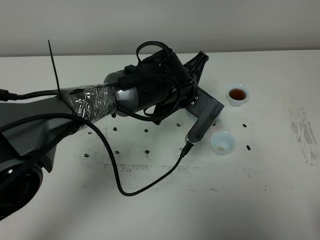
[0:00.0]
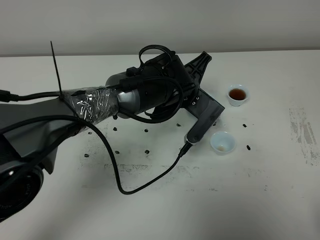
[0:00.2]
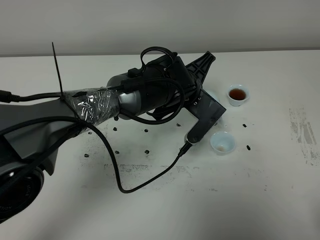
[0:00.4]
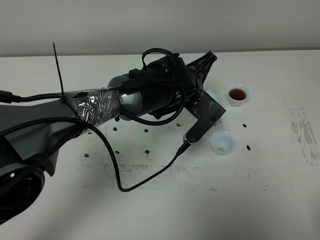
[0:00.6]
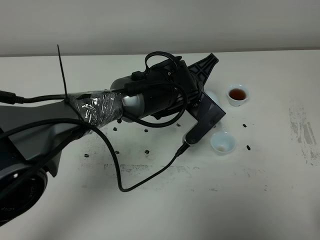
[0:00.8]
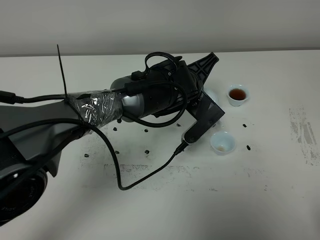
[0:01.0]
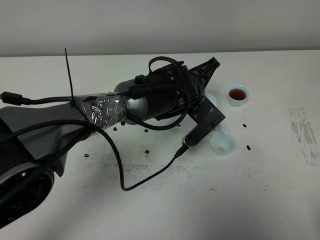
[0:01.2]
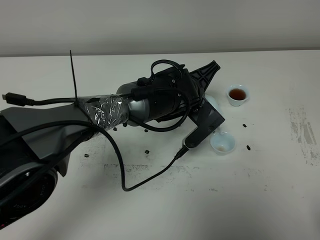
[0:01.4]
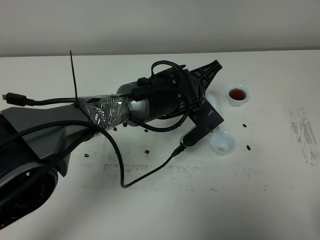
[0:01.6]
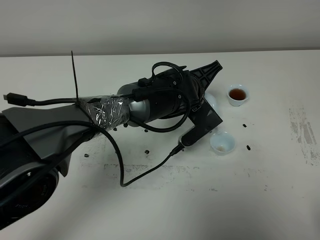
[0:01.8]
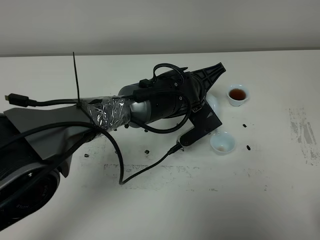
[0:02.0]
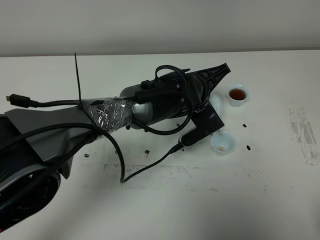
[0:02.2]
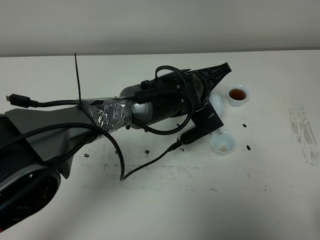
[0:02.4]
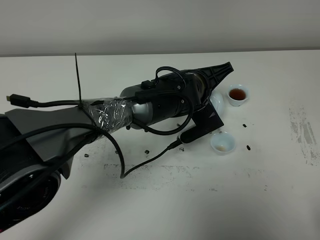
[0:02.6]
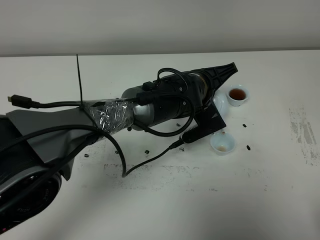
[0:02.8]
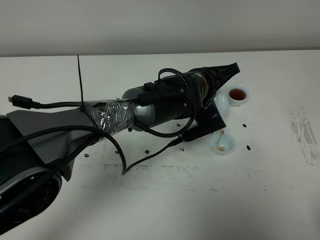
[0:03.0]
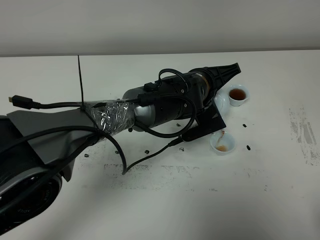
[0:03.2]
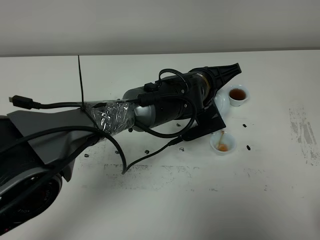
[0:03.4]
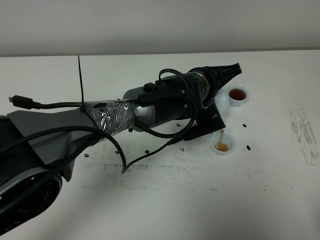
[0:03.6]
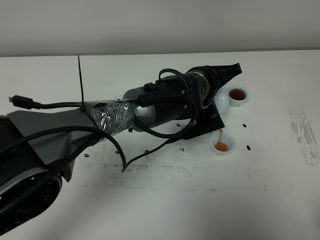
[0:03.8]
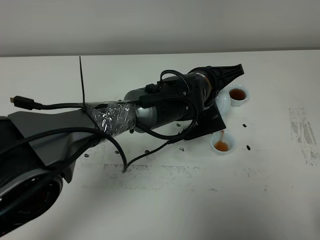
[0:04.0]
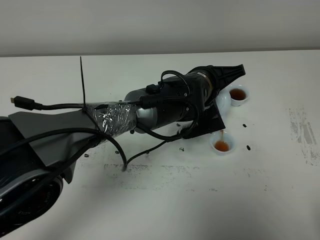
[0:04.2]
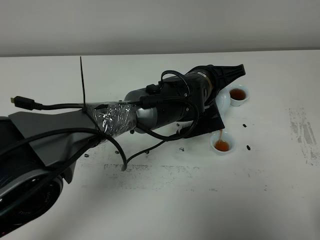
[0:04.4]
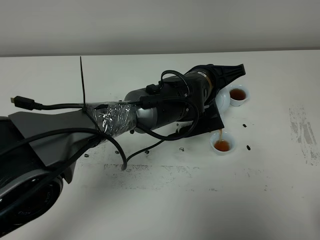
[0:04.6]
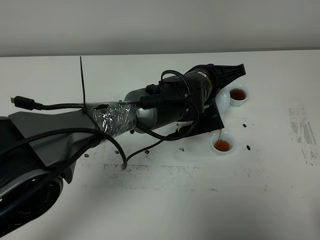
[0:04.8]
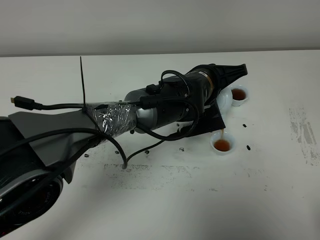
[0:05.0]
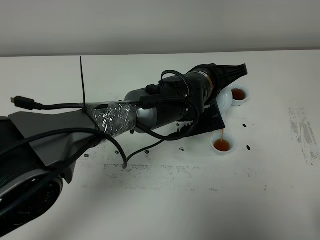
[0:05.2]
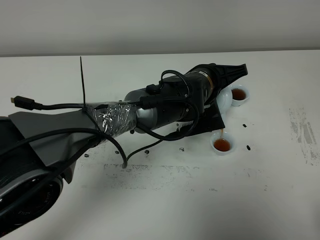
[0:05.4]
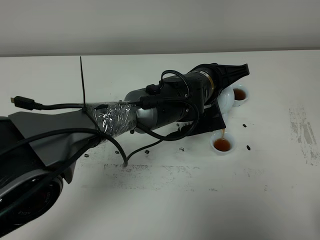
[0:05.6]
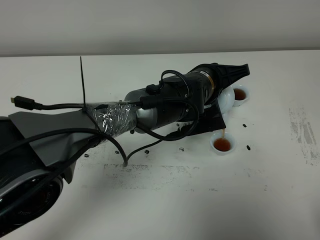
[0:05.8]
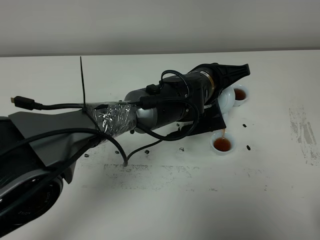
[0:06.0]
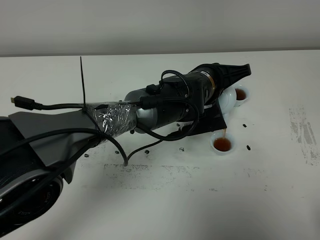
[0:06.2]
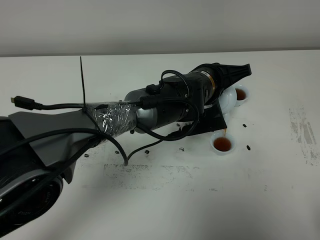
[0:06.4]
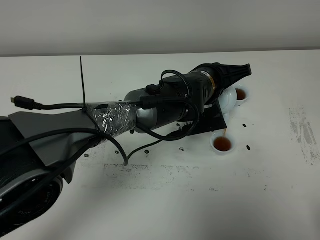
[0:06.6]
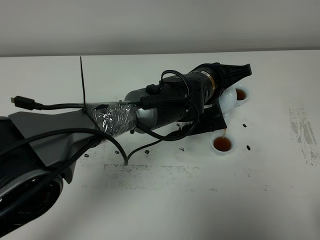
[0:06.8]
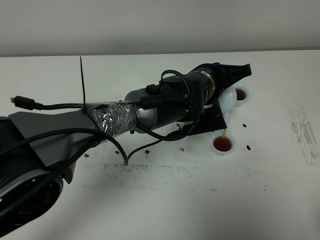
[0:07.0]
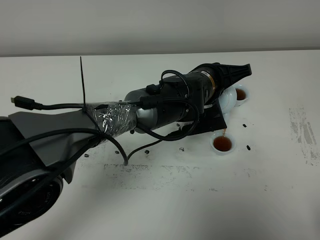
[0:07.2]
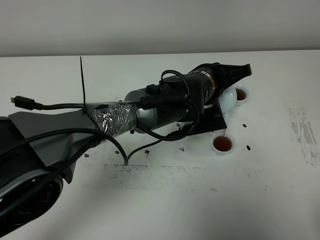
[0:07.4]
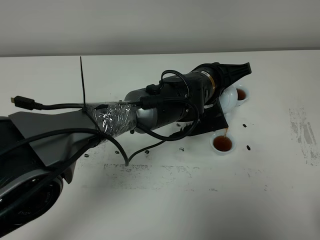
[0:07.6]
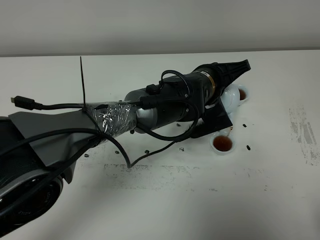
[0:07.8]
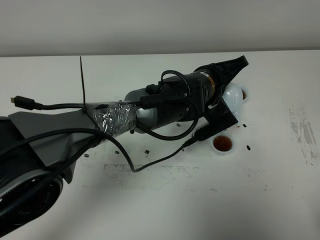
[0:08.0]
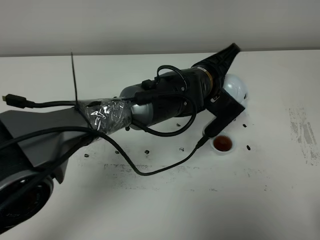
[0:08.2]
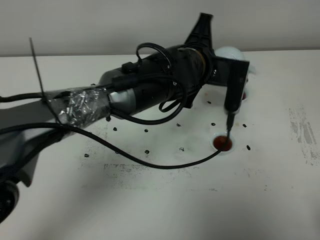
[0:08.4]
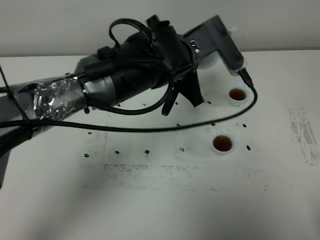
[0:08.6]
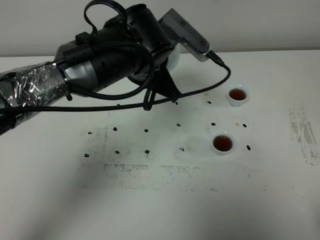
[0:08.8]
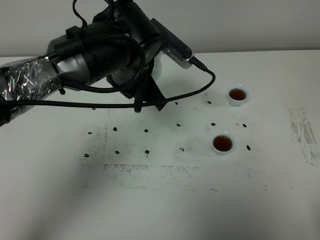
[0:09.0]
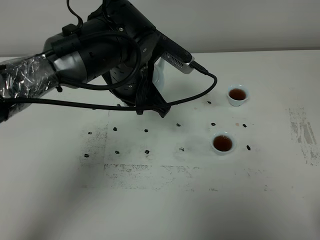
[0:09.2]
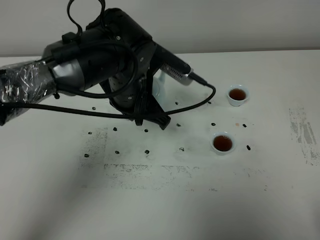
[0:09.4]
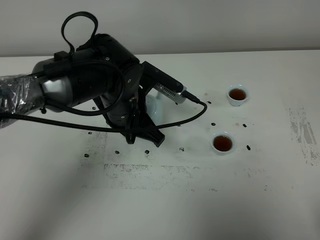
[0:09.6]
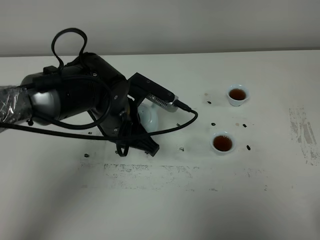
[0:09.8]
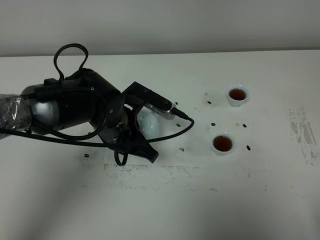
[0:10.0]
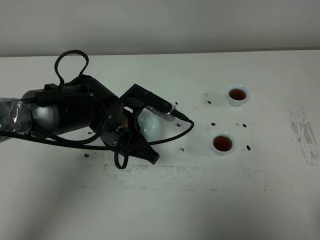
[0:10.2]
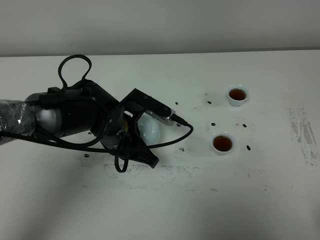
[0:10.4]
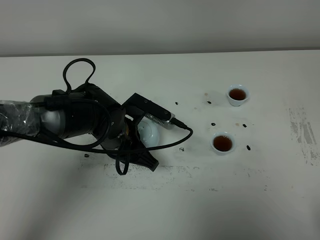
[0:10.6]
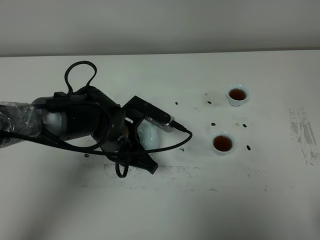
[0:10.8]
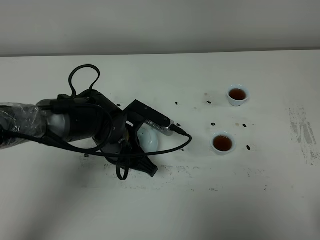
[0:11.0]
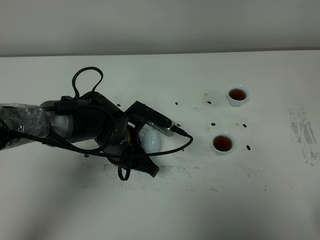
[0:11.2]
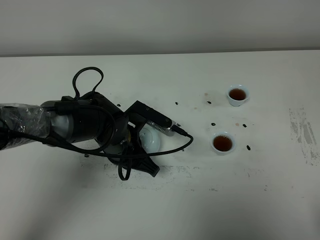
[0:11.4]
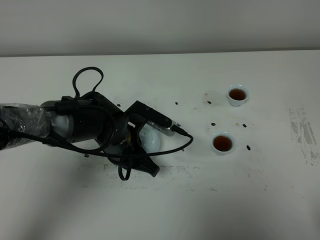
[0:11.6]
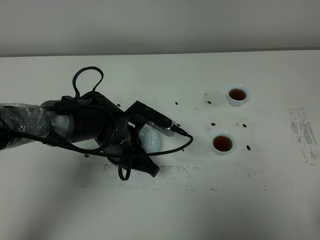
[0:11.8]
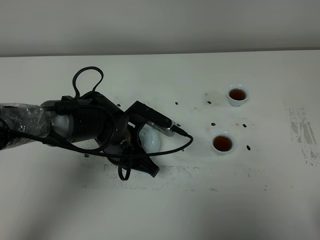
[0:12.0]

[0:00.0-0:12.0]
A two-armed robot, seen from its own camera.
Task of the whole recording: grasp the blue porcelain teapot and pour the tea into the two blue porcelain teacups one by one, put the blue porcelain teapot back in its original place.
Step, 0:00.0 to 0:08.0: Pour tea into the teacup with the left gripper.
0:00.0 to 0:01.6: There are only small adjustments of the grippers.
0:01.6 to 0:03.0: The grippers make only small movements.
0:03.0 to 0:04.4: There are only small adjustments of the grippers.
0:04.4 to 0:07.6: Neither gripper changes place.
0:07.6 to 0:09.0: The left gripper travels to the left and upward by roughly 15 cm.
0:09.0 to 0:10.4: The left gripper moves downward, approximately 10 cm.
0:10.4 to 0:12.0: There are only small adjustments of the grippers.

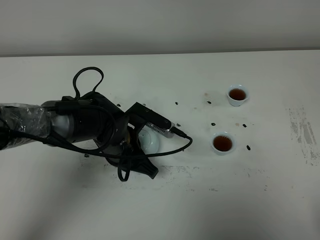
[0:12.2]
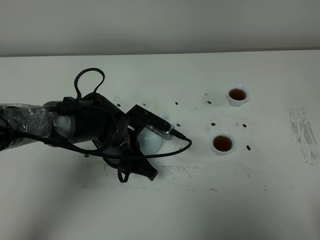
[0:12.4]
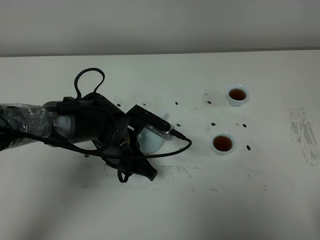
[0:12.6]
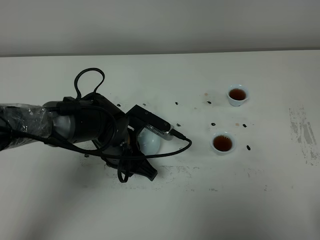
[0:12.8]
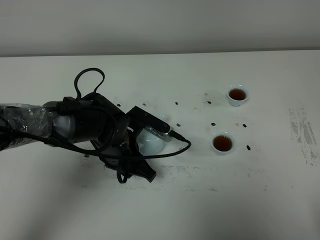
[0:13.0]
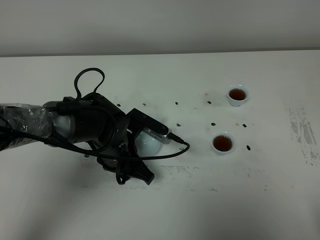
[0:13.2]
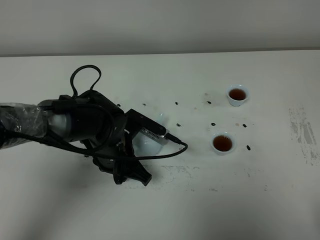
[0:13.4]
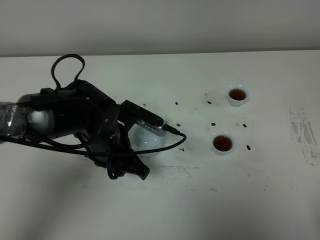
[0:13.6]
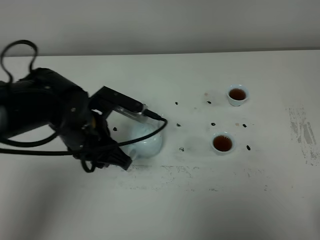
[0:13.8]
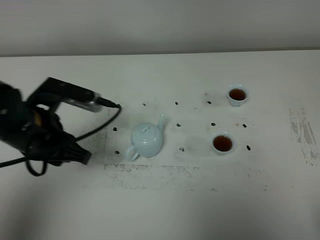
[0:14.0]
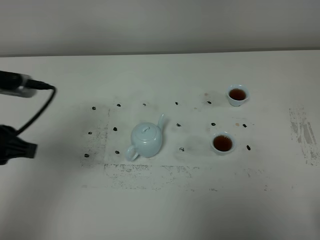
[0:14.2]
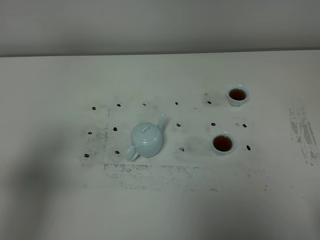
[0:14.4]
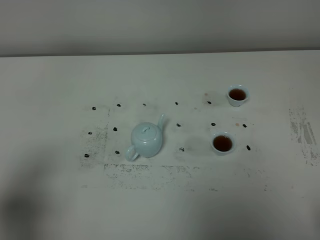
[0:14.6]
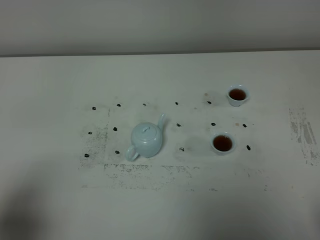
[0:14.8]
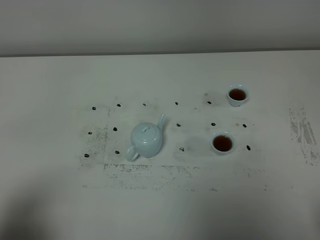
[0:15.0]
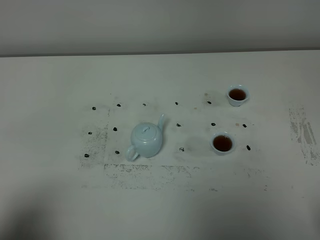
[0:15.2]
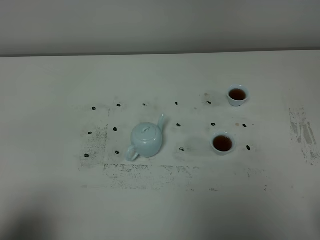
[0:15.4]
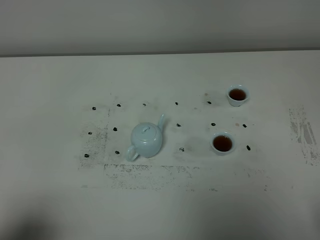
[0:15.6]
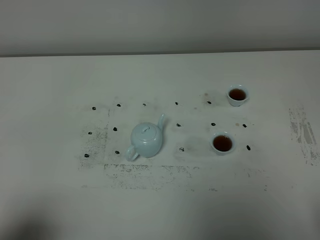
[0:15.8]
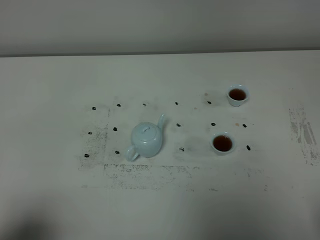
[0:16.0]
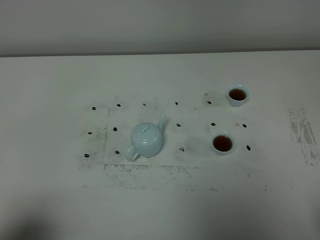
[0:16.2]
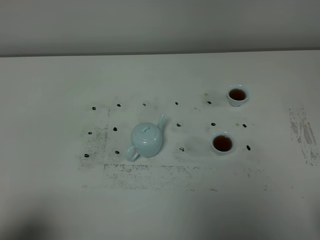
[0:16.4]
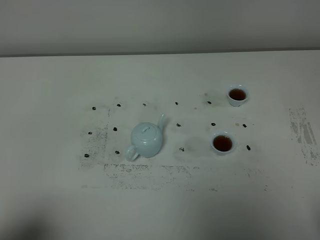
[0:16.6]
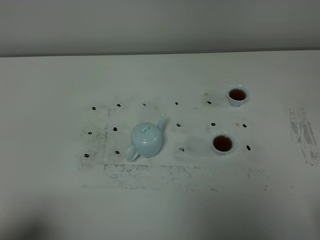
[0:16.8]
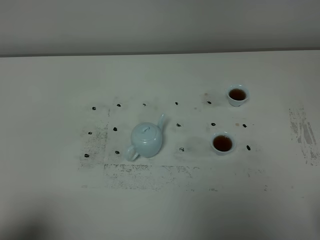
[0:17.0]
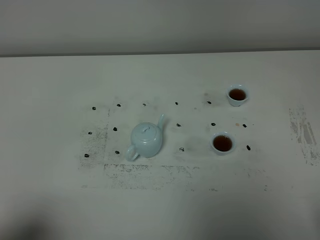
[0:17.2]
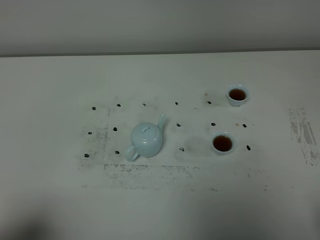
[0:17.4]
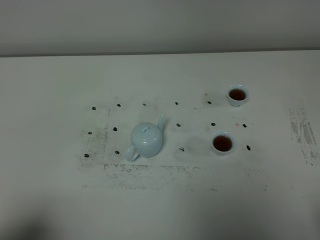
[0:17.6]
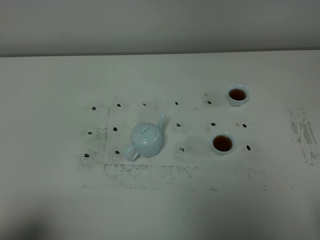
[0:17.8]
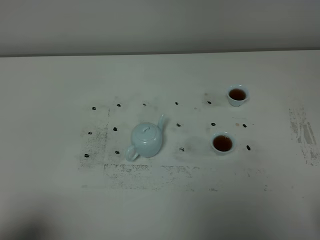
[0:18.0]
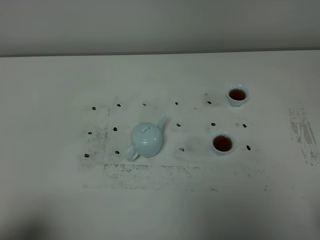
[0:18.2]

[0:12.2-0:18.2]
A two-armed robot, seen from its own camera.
Task of the whole recording: grasp the blue porcelain teapot and pour the tea into the two blue porcelain teacups one by one, put the blue porcelain teapot back in its original place.
0:12.2 to 0:13.8: The left gripper moves upward and to the left, approximately 10 cm.
0:13.8 to 0:15.2: The left gripper is displaced backward and to the left by roughly 30 cm.
0:16.6 to 0:18.2: Neither gripper changes place.

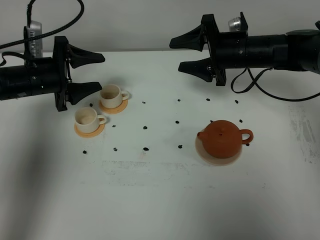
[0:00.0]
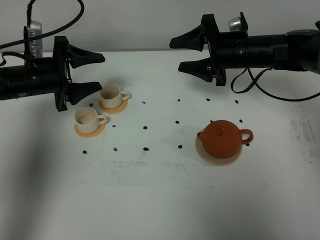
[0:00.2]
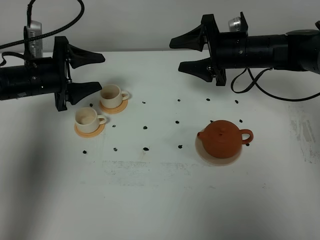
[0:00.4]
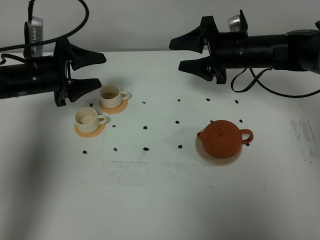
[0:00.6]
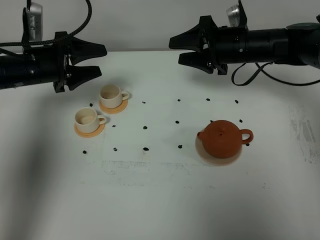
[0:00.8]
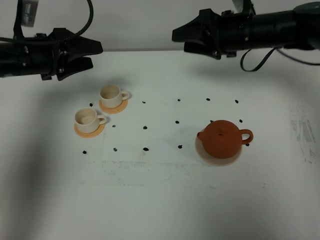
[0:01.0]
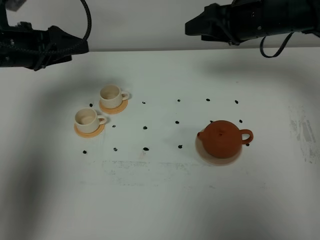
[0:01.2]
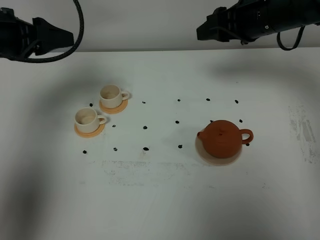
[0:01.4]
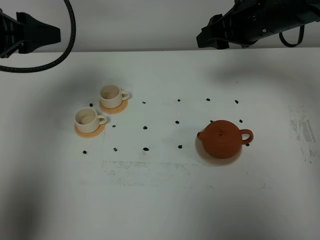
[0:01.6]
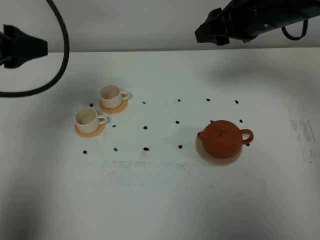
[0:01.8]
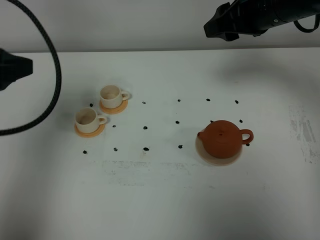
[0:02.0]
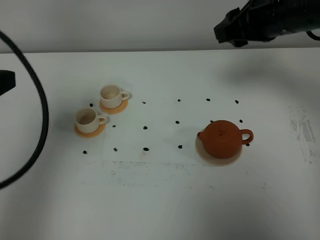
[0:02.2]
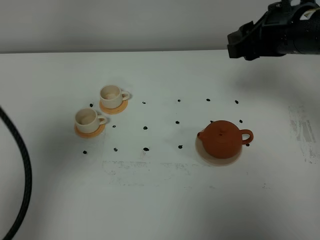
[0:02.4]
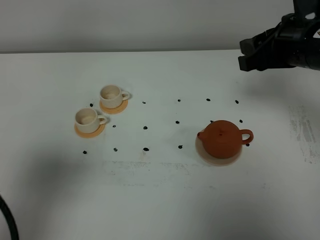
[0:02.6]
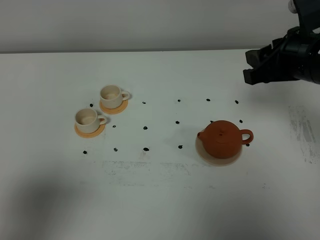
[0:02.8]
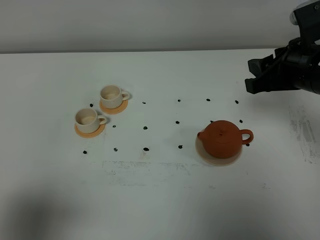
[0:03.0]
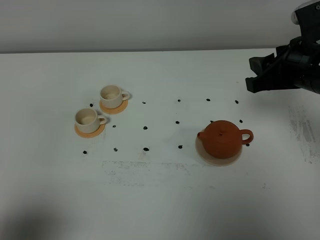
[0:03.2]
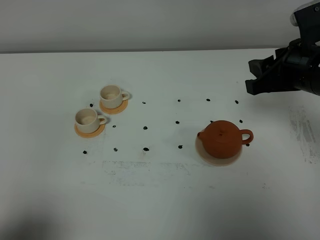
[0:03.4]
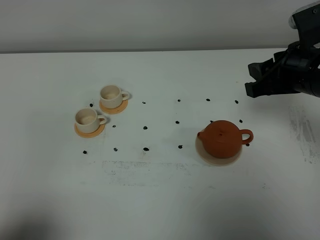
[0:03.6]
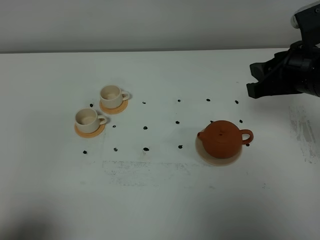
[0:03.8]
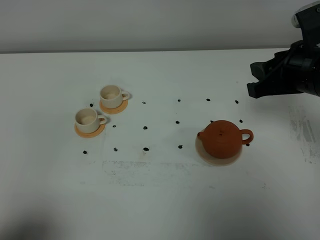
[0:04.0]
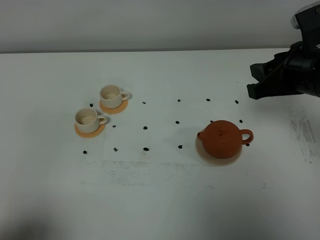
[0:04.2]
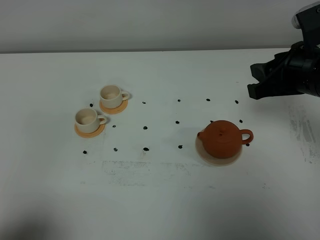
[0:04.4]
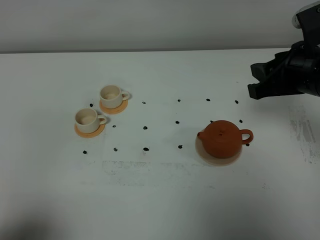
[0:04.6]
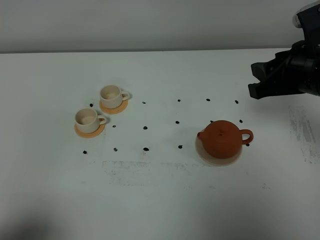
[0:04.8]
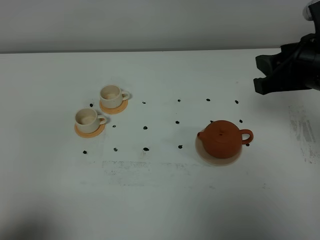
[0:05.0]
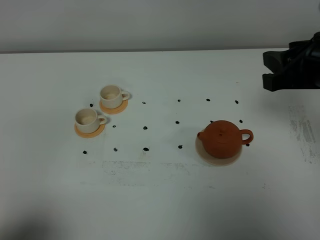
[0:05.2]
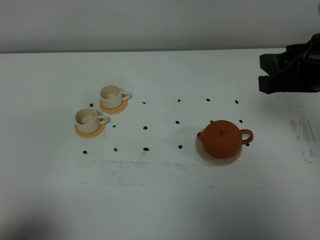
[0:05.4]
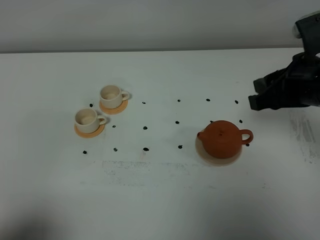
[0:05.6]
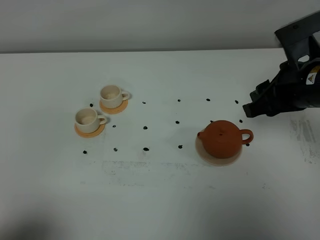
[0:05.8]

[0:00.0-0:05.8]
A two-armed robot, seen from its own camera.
Task of the whole recording: grasp the brown teapot and pour the tea into the two white teacups one by one, put the brown teapot back in its original place.
0:00.0 to 0:01.4: The right gripper goes about 10 cm upward, while the left gripper moves upward, roughly 15 cm.
0:01.4 to 0:02.8: The left gripper moves backward, roughly 30 cm, while the right gripper shifts about 10 cm backward.
0:02.8 to 0:04.4: The left gripper is displaced downward by approximately 10 cm.
0:04.4 to 0:05.8: The grippers stay close to where they were, moving slightly.
